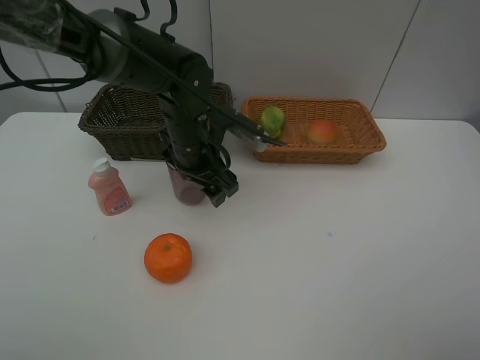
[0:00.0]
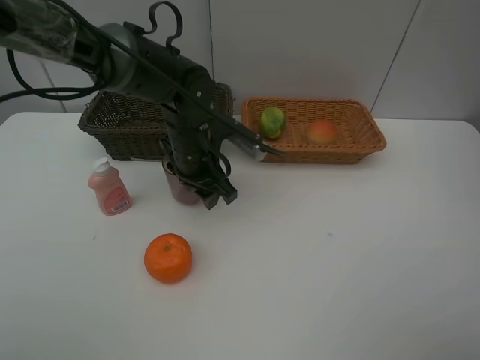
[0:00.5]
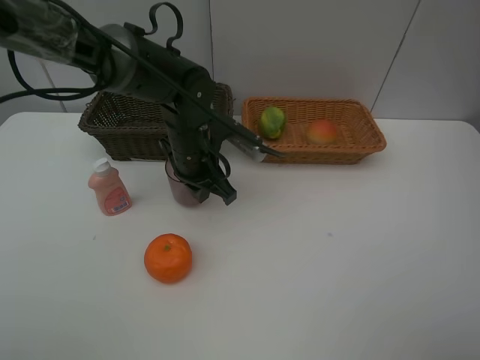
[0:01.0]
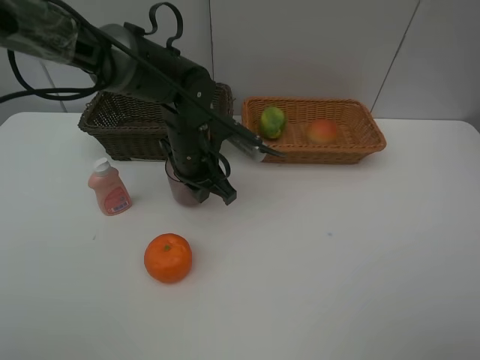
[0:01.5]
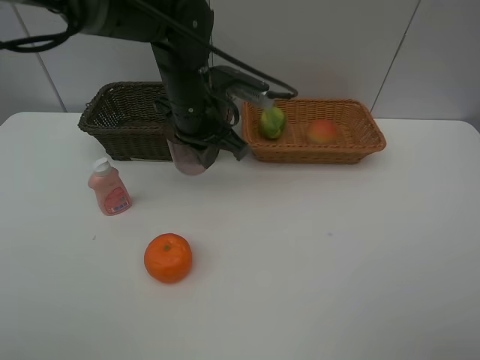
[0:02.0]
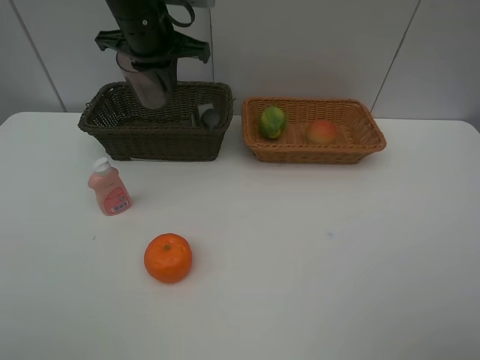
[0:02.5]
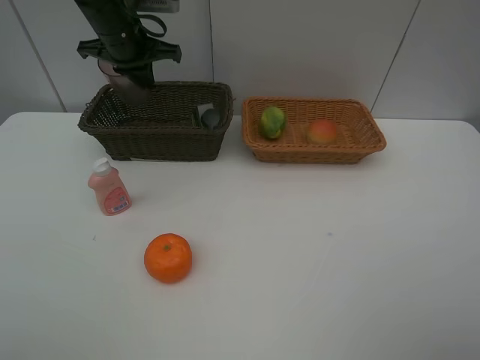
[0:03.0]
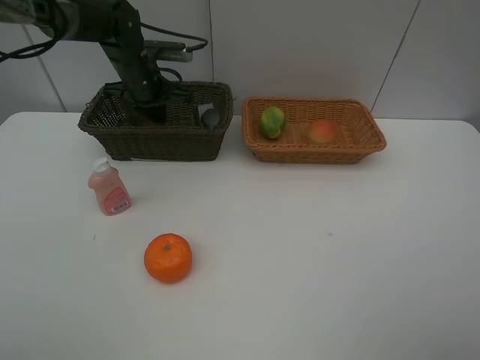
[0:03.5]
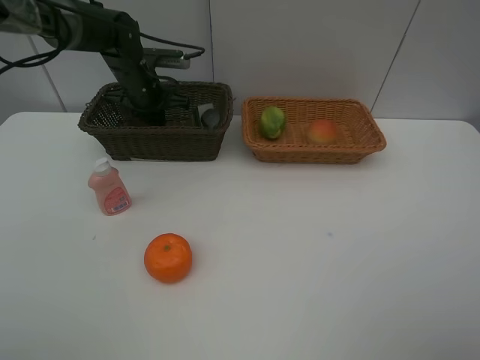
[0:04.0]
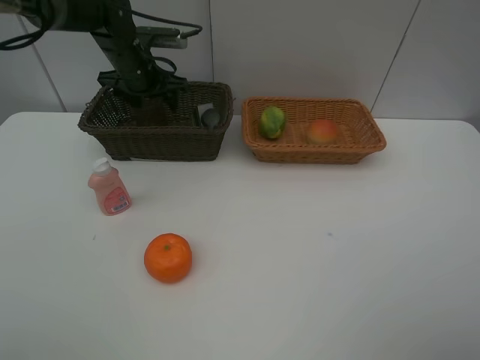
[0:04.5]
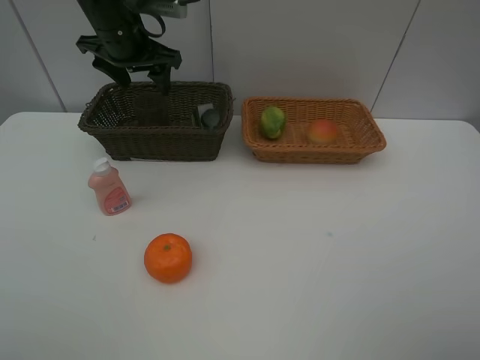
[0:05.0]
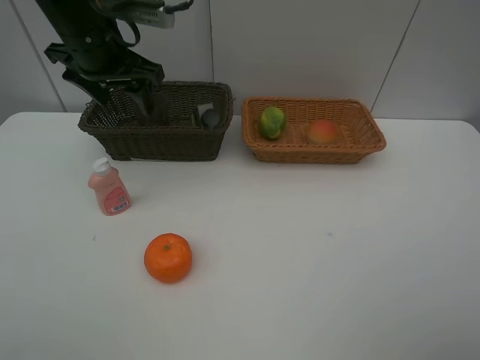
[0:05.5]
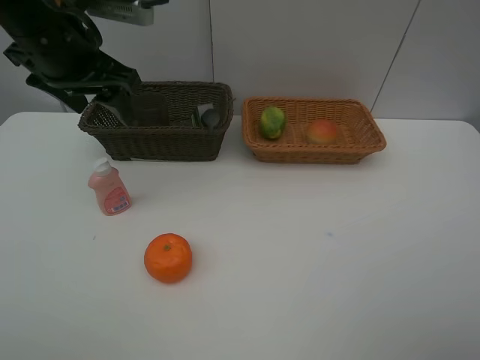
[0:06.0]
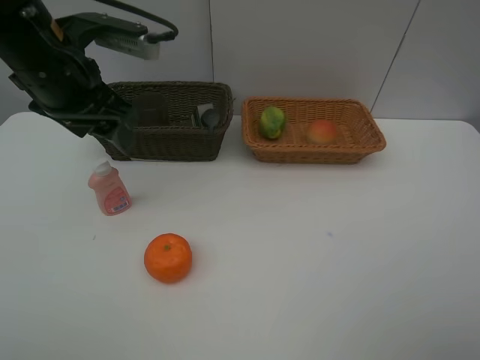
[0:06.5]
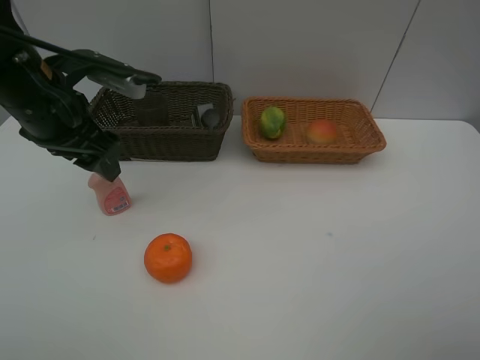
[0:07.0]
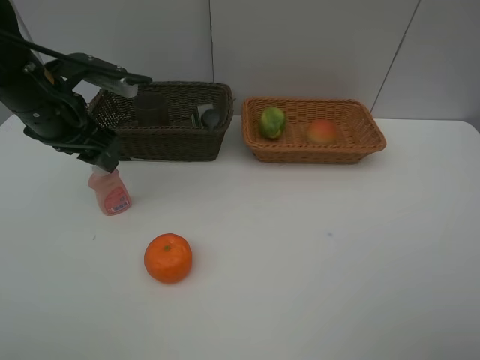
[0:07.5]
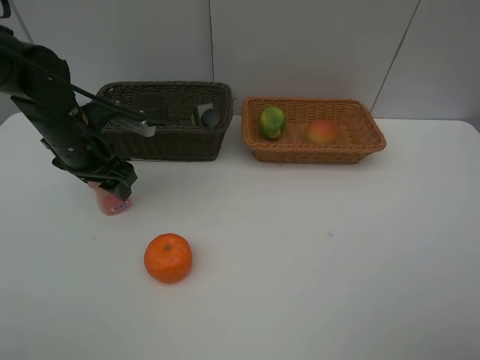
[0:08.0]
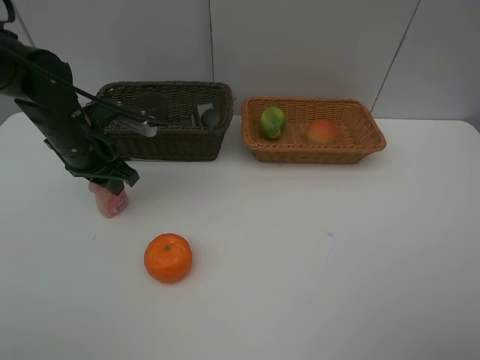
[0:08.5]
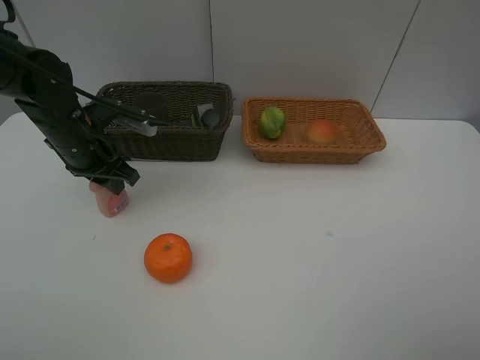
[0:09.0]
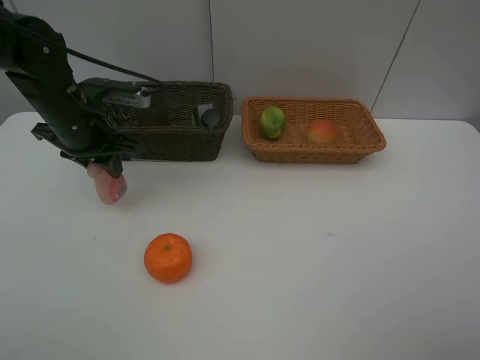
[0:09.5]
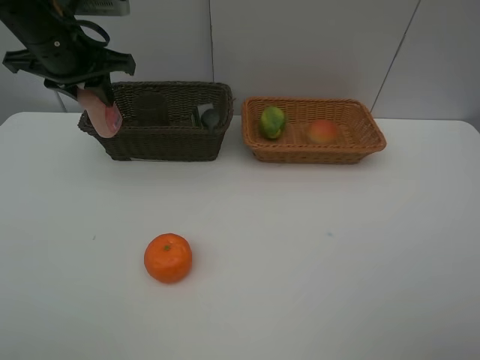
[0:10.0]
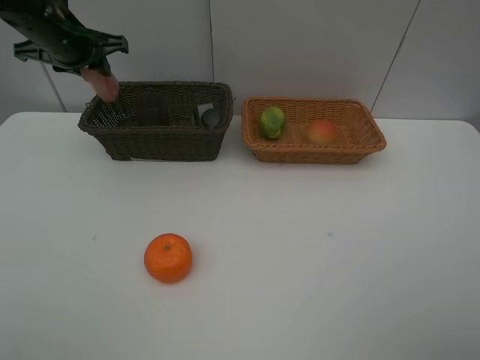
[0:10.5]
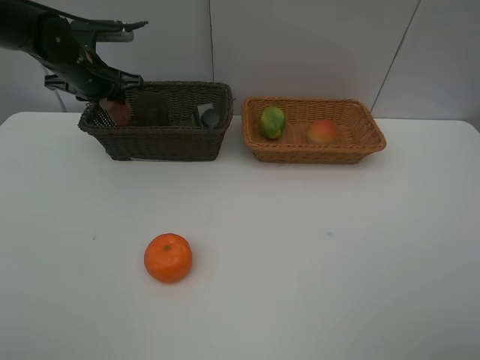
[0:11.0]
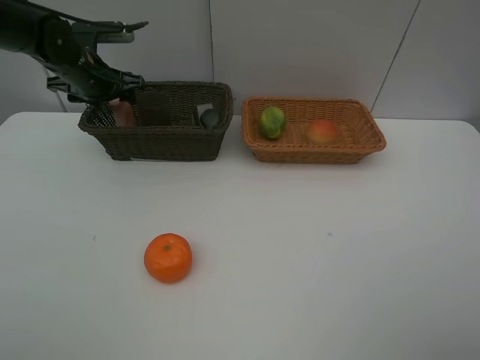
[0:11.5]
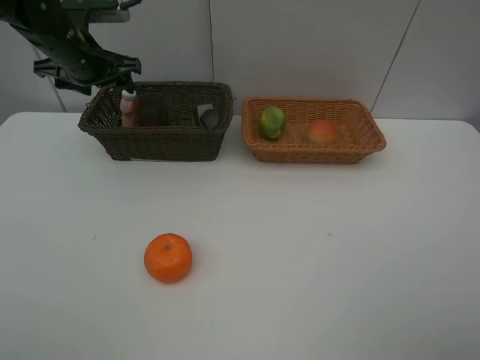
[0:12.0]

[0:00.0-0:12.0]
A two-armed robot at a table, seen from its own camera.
Task of the whole recording: place multiple objects separately in different baskets.
0:00.0 to 0:02.0: The left gripper heads upward, covering some 5 cm, and closes.
0:02.0 to 0:04.0: The left gripper travels forward, to the left and downward by roughly 20 cm.
0:04.0 to 0:06.0: The left gripper shifts approximately 20 cm backward and upward, and opens up.
0:06.0 to 0:08.0: The left gripper goes roughly 15 cm downward.
0:08.0 to 0:10.0: The left gripper is displaced upward by some 15 cm, and closes up.
0:10.0 to 0:12.0: The left gripper travels forward and downward by approximately 10 cm, and opens.

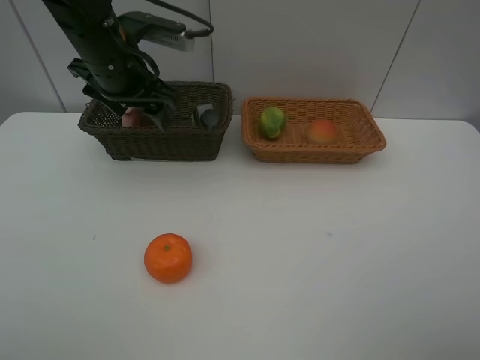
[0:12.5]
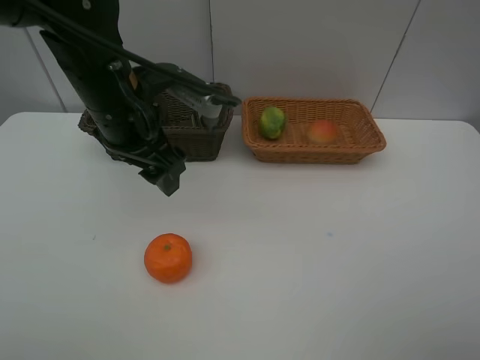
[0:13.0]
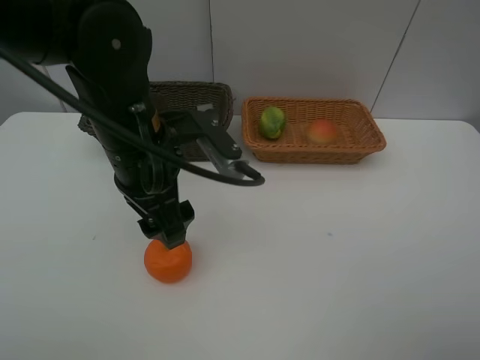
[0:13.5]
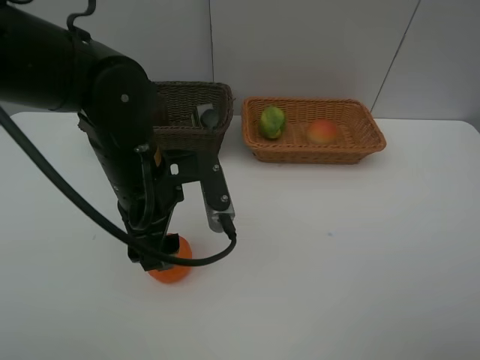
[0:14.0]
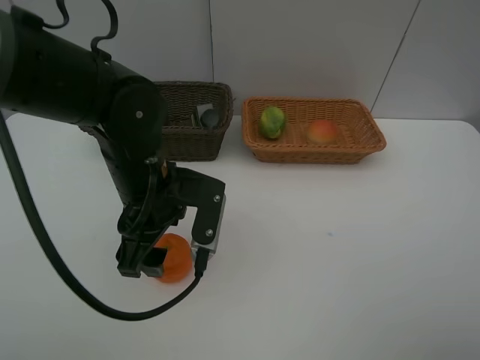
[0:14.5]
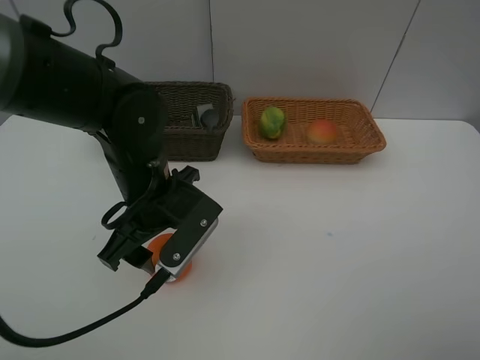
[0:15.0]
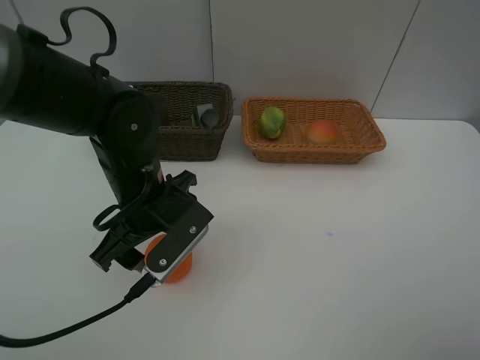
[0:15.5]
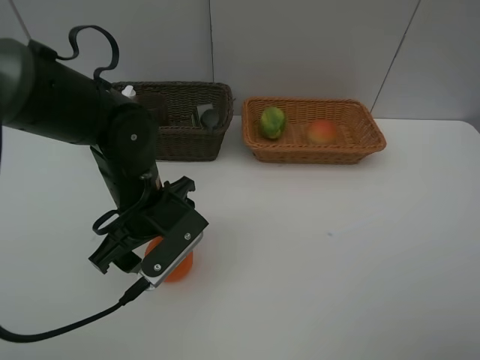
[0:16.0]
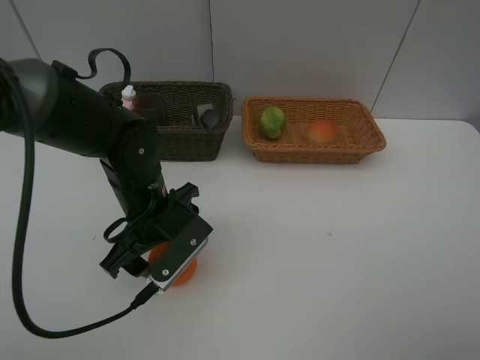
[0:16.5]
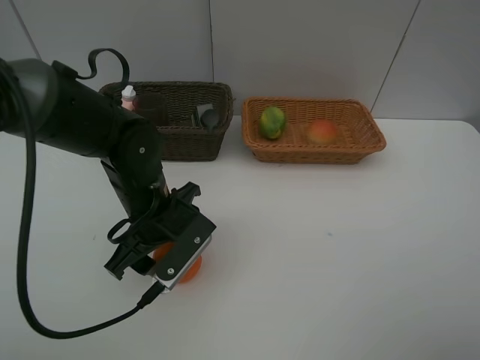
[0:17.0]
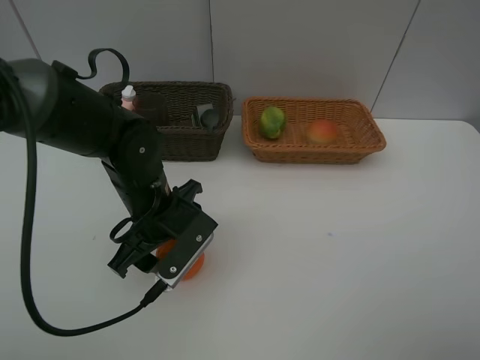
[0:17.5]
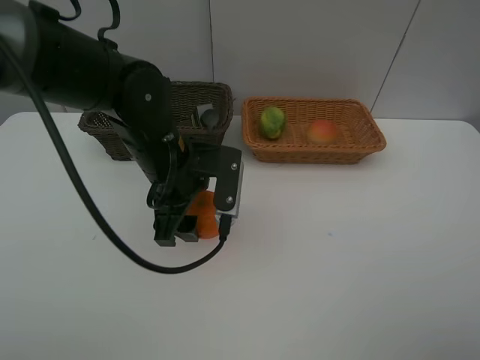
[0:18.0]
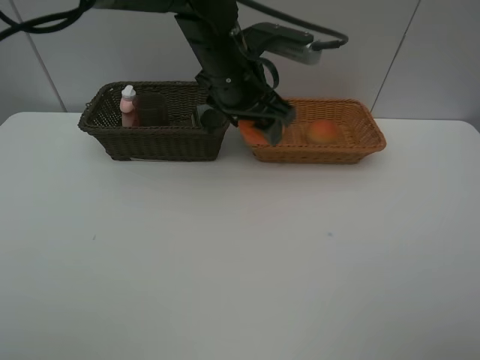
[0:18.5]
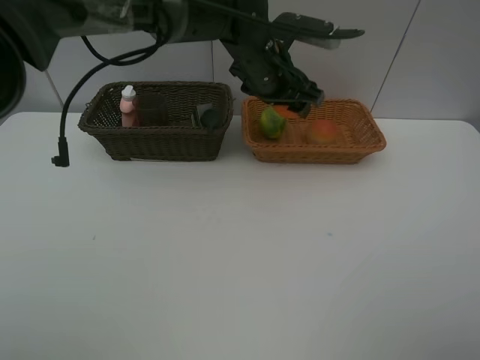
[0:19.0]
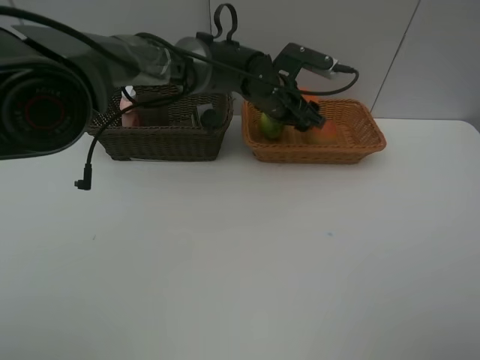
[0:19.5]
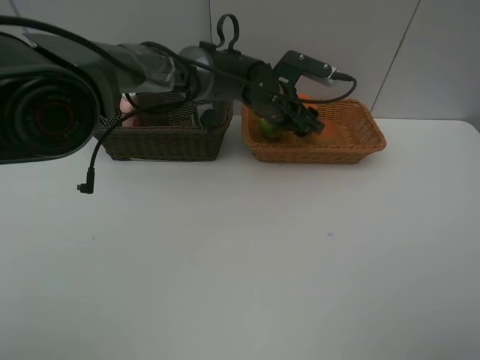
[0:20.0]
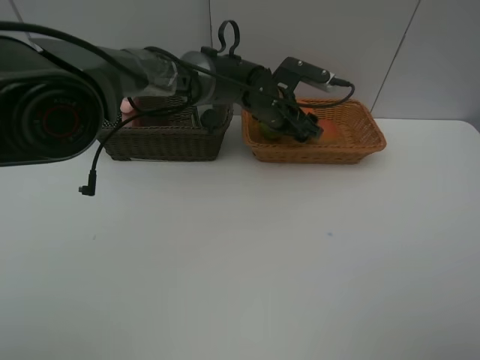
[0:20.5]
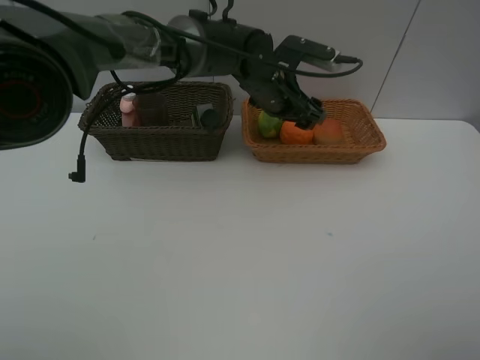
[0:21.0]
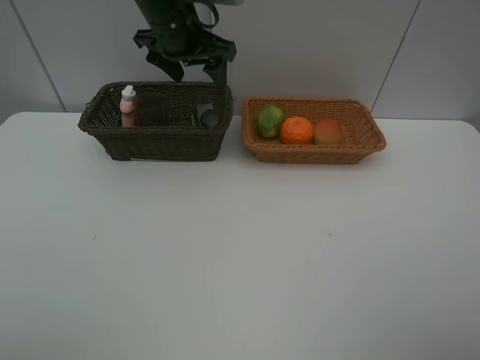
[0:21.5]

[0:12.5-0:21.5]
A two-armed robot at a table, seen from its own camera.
Task of the whole recording: place multiple objects separately in different baskets.
0:12.5 to 0:14.5: The left gripper heads backward, downward and to the right, covering approximately 15 cm.
0:17.0 to 0:19.5: The left gripper moves forward and to the right, approximately 25 cm.
0:19.5 to 0:21.5: The left gripper heads to the left and upward, covering approximately 20 cm.

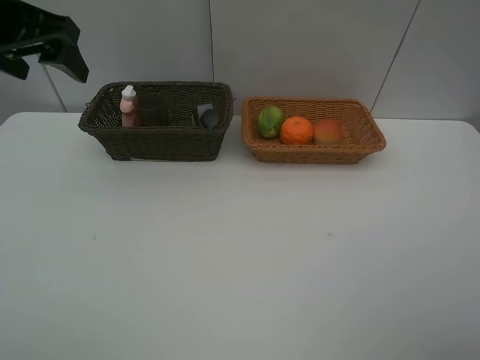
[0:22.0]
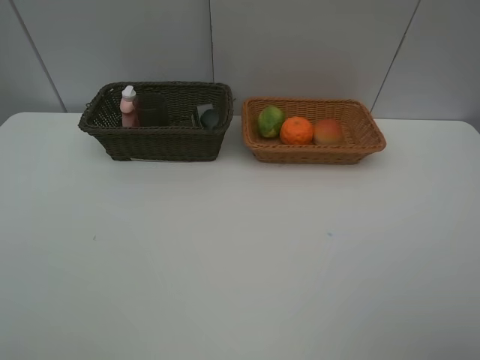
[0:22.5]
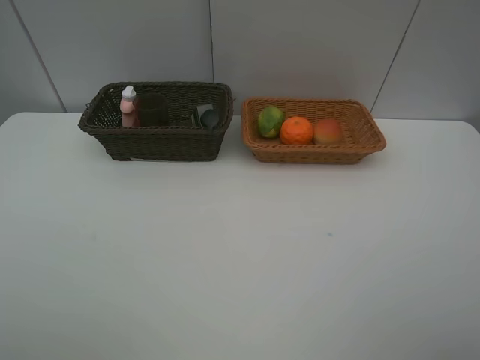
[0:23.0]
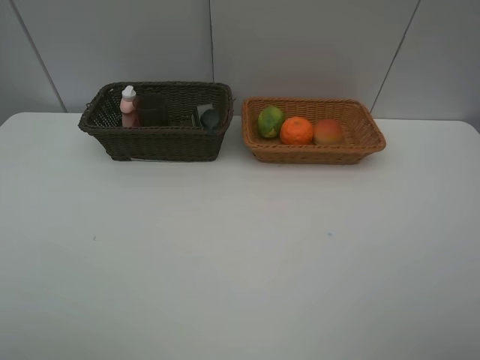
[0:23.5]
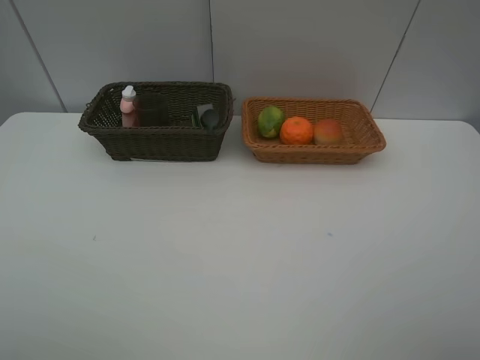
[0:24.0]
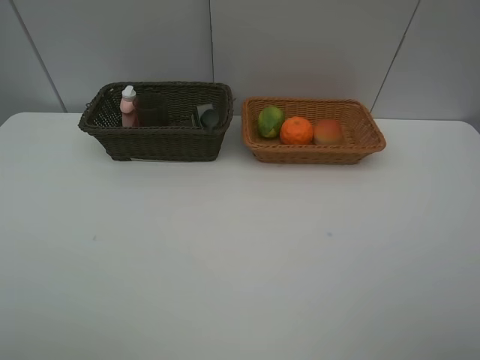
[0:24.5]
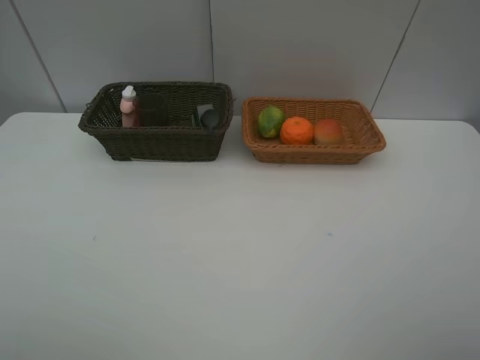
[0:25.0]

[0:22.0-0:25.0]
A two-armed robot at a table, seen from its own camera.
Task of the whole recording: place multiple objects separately in different baskets.
0:22.0 to 0:23.5: The left gripper goes approximately 30 cm backward.
